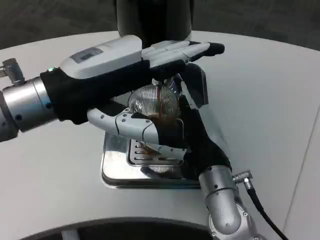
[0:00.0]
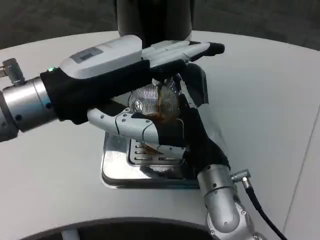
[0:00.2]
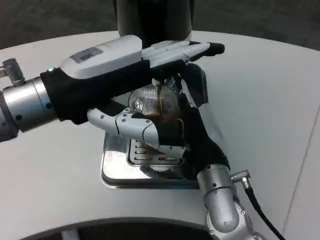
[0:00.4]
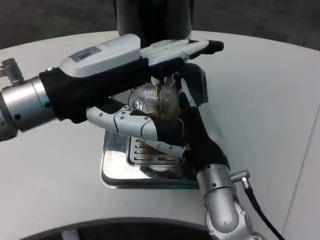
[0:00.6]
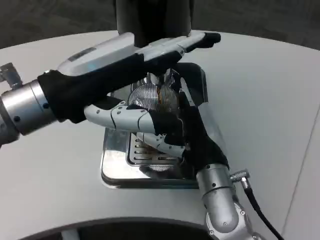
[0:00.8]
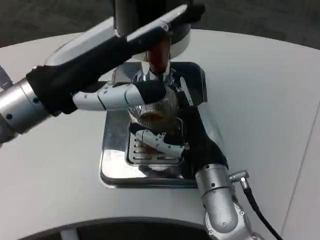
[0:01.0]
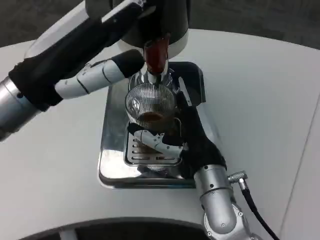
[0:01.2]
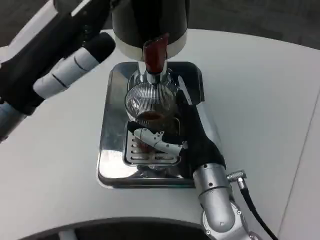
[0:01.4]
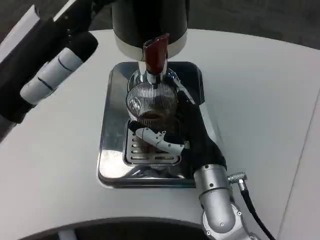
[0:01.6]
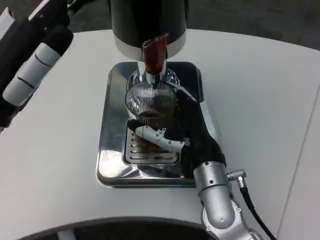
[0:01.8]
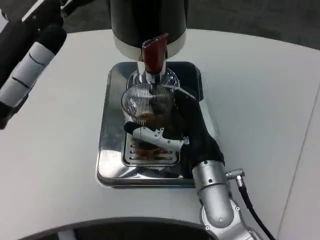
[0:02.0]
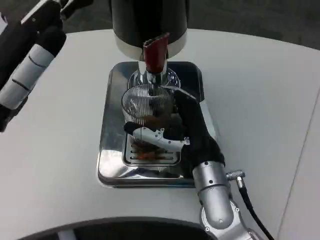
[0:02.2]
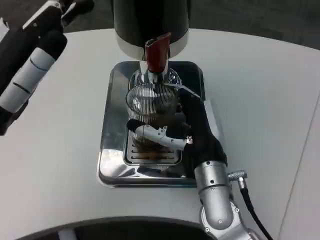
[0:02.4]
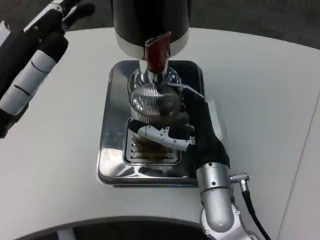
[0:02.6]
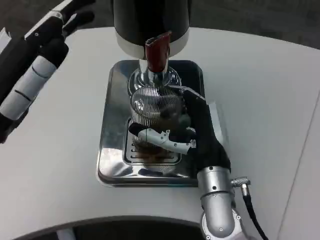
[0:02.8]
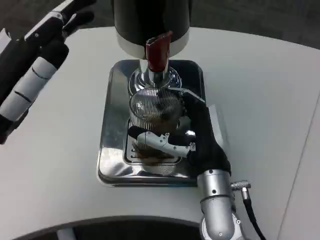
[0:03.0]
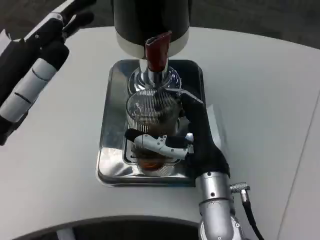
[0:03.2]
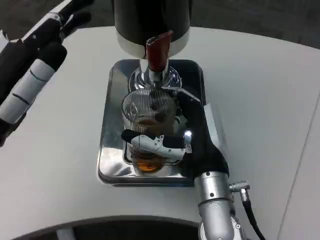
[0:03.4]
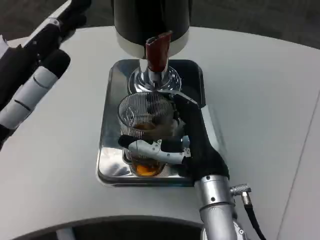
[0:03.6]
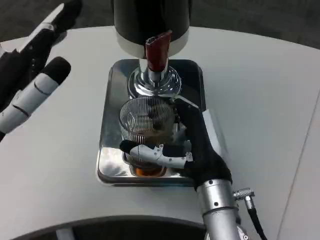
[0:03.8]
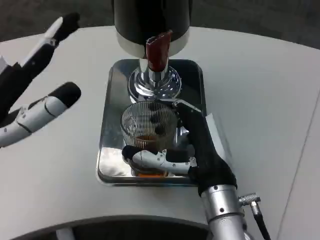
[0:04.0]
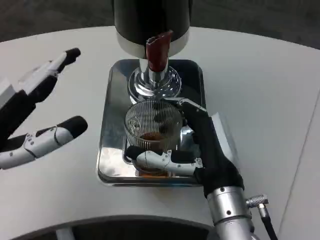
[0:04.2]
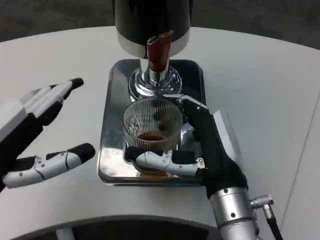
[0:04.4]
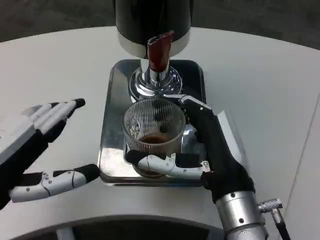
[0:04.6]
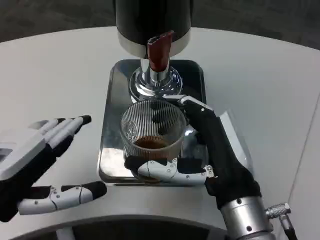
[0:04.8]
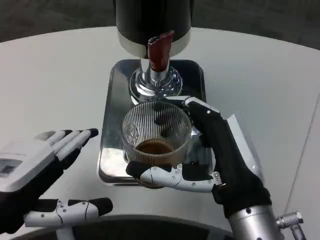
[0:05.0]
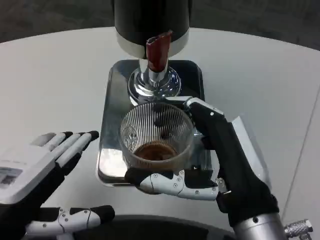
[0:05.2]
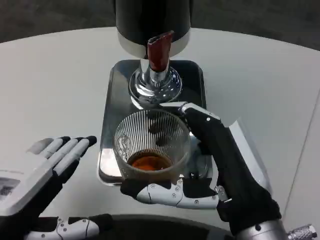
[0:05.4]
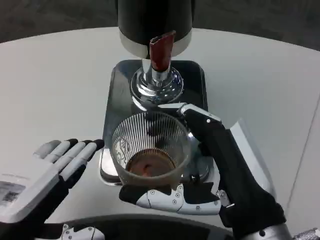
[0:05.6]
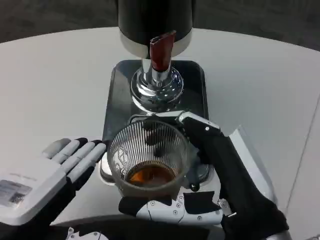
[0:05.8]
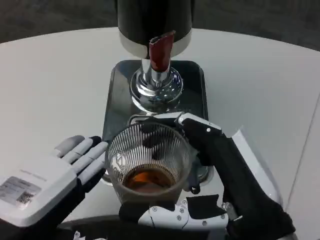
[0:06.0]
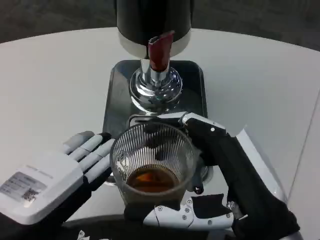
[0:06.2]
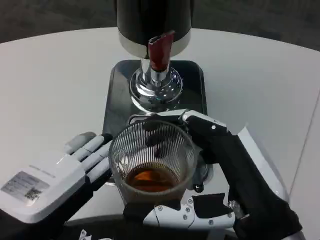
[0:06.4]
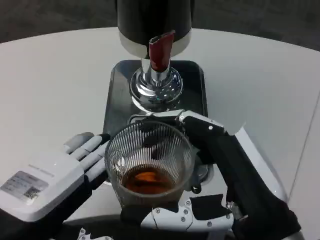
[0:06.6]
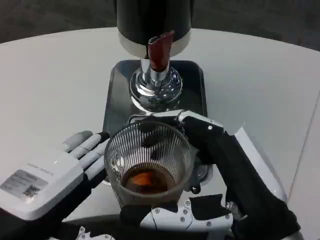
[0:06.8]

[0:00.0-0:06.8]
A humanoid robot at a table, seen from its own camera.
Task of the whole recording: Grasp the cup under the faucet to collect the drink, then remove the cup.
0:04.0 to 0:05.4: The left hand heads backward and downward, covering some 10 cm, while the right hand goes roughly 10 cm backward.

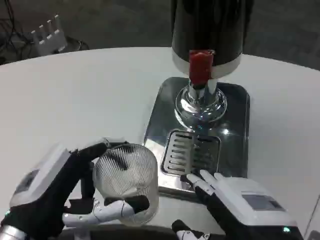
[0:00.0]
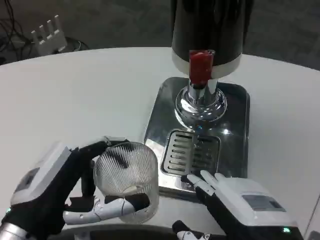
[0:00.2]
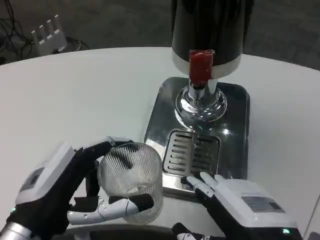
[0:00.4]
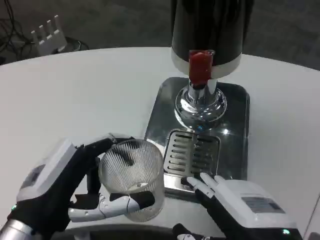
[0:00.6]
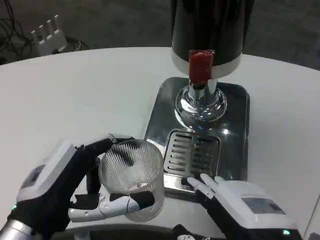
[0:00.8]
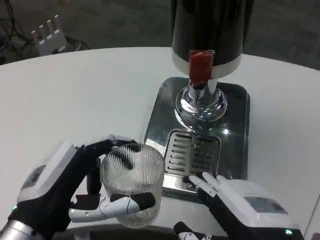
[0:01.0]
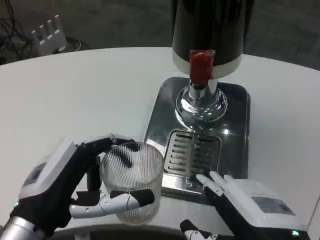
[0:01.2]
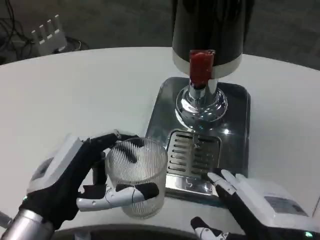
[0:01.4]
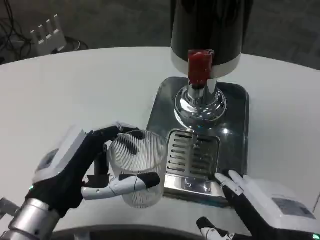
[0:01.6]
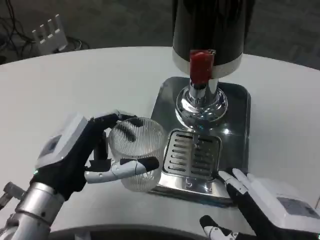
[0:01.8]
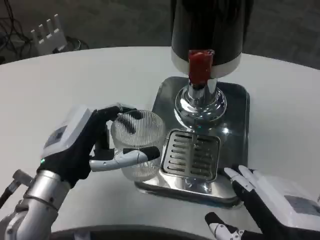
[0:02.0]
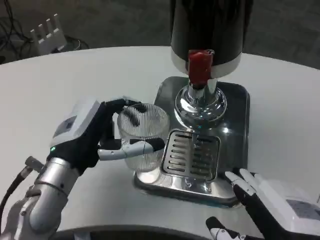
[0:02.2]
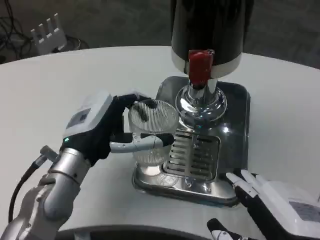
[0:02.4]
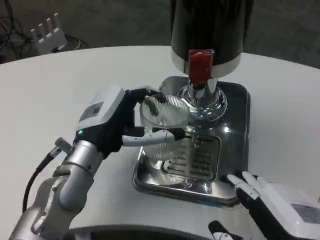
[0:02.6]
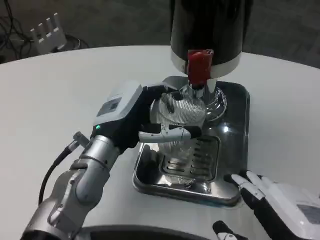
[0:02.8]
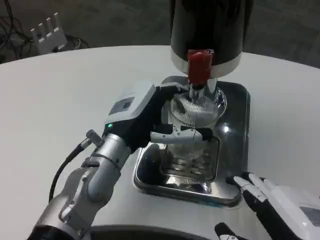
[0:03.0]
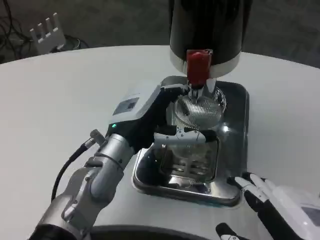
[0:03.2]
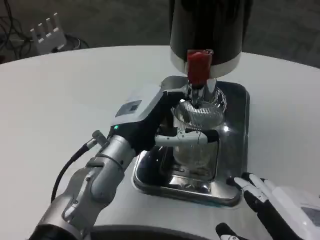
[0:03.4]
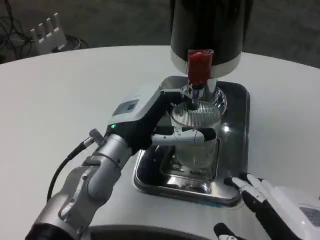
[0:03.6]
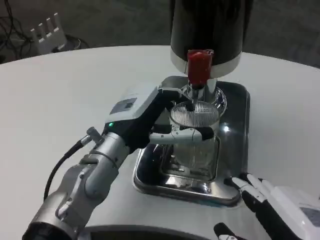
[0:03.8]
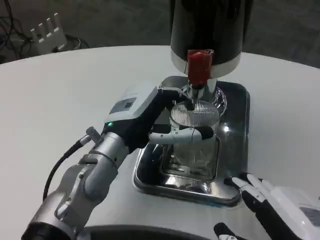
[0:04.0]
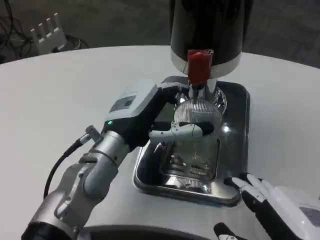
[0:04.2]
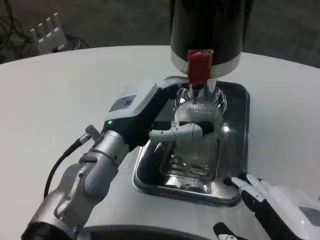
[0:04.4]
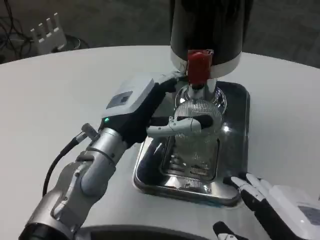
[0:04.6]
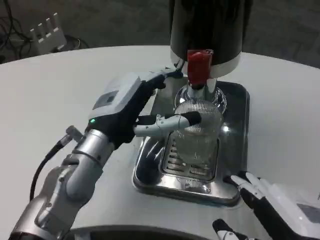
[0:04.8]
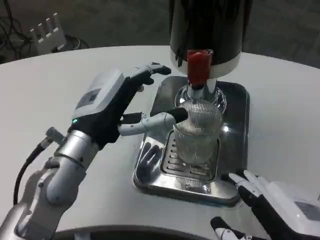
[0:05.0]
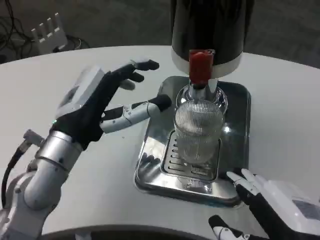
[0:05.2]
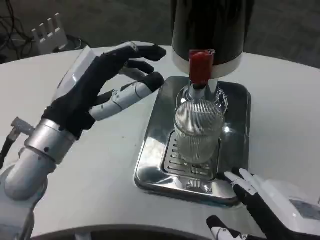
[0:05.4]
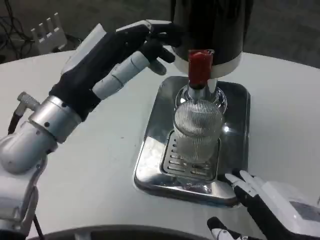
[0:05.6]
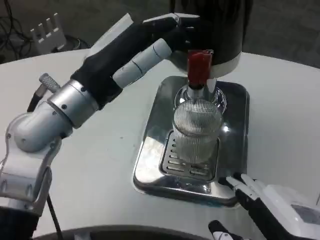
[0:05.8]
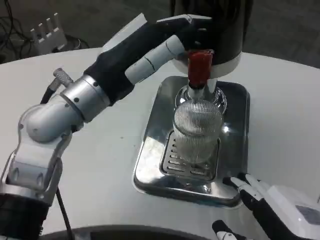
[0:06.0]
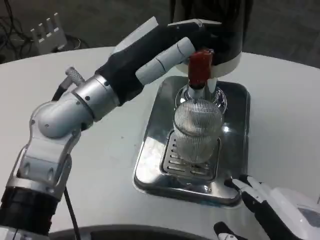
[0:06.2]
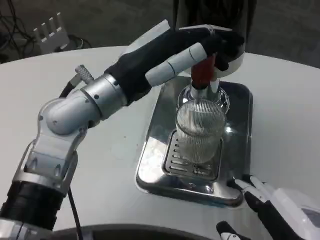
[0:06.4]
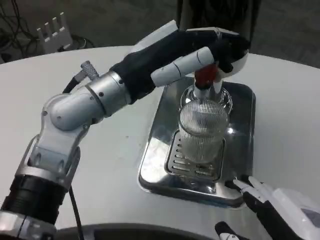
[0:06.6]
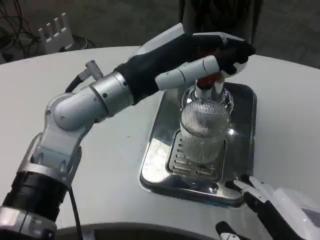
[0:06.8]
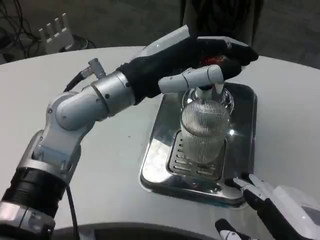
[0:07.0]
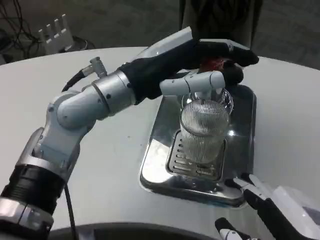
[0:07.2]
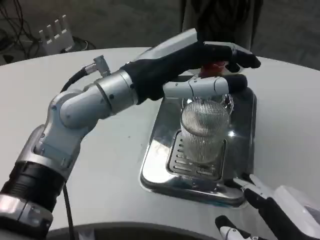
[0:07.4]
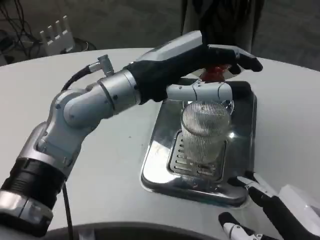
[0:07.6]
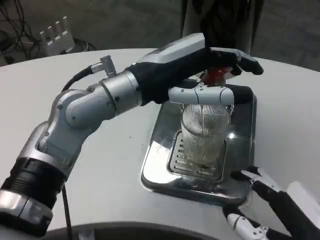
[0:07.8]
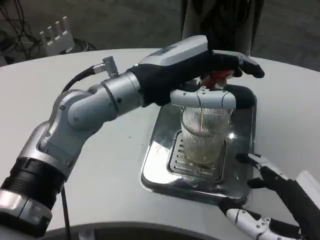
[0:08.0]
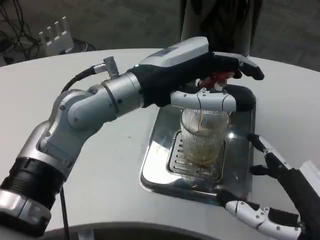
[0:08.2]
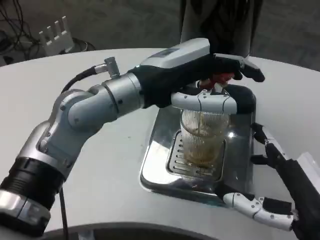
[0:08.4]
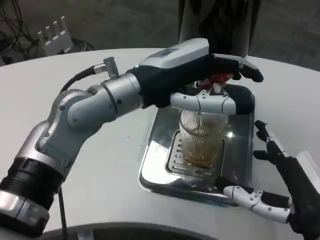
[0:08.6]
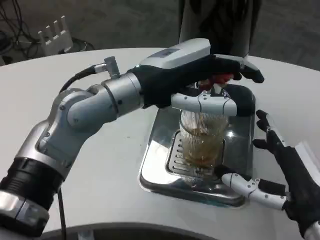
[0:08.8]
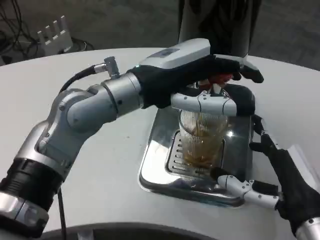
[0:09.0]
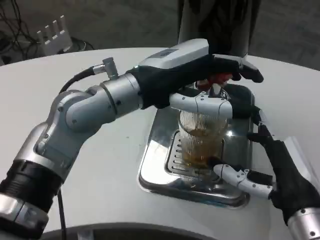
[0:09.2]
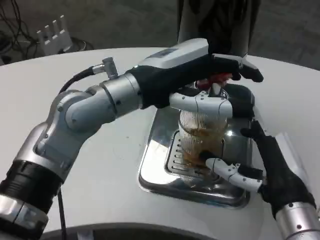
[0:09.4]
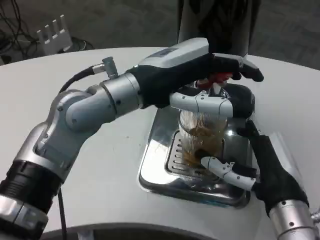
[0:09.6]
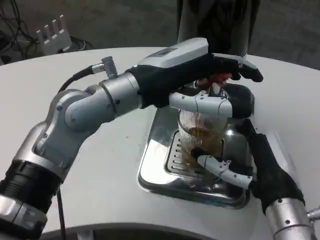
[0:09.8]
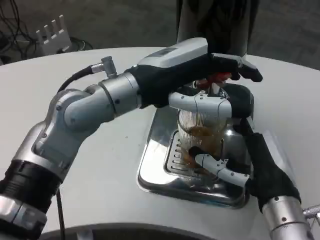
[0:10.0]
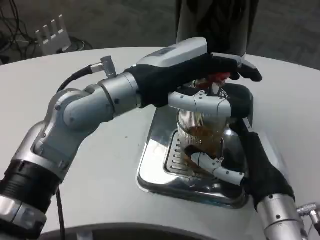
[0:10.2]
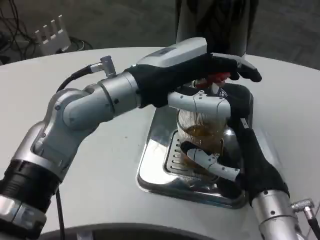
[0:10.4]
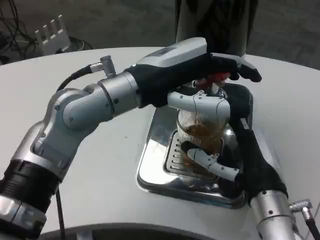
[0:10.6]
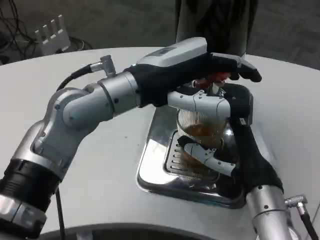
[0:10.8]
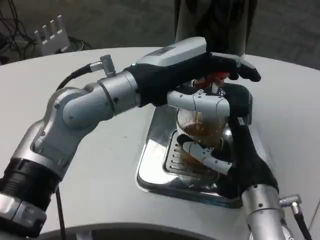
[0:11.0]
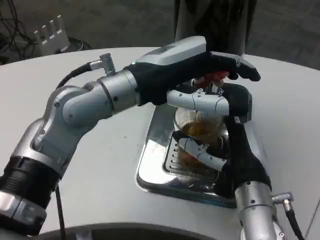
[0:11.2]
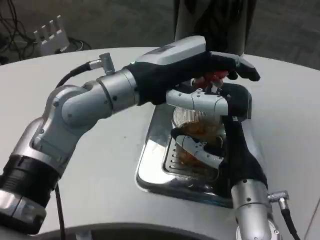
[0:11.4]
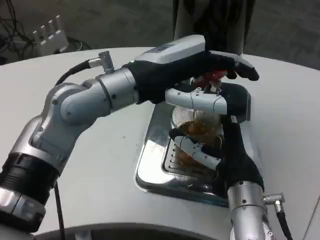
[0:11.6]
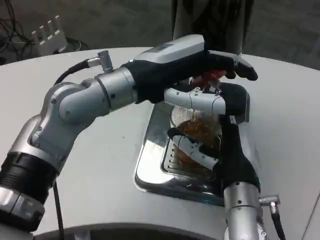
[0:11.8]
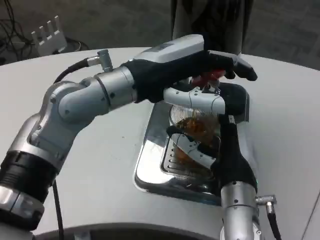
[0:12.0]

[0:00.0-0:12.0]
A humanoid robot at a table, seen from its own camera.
Task of the whole recording: Grasp the cup under the faucet to collect the drink, then remove the cup.
0:01.6 to 0:03.0: The left hand is displaced forward and to the right by about 15 cm.
0:03.0 to 0:04.4: Both hands stay put.
0:04.4 to 0:06.0: The left hand travels upward by about 10 cm.
0:07.6 to 0:09.0: The right hand travels forward by some 10 cm.
0:09.0 to 0:10.4: The right hand ends up about 5 cm from where it was.
0:10.4 to 0:12.0: The right hand moves about 5 cm.

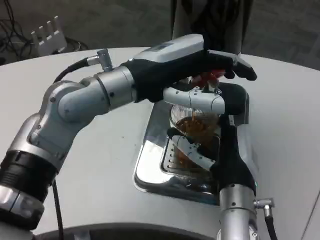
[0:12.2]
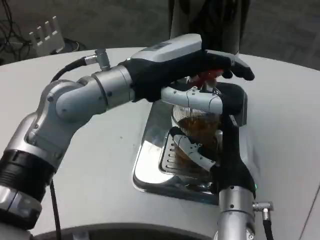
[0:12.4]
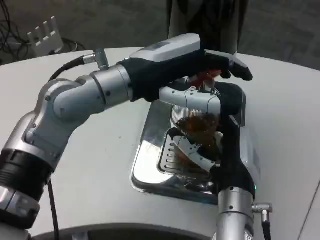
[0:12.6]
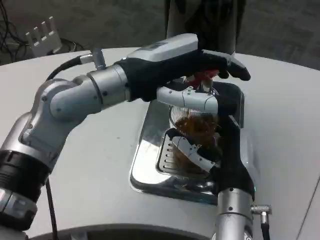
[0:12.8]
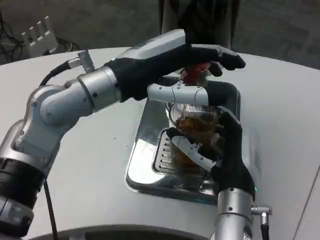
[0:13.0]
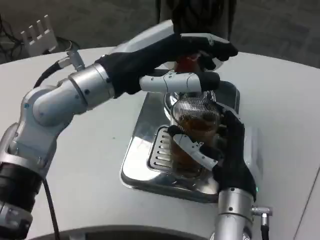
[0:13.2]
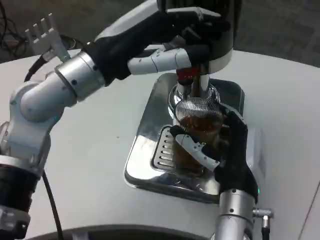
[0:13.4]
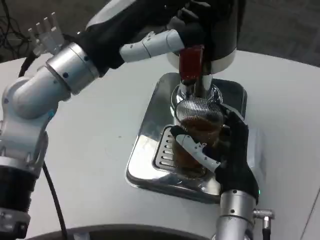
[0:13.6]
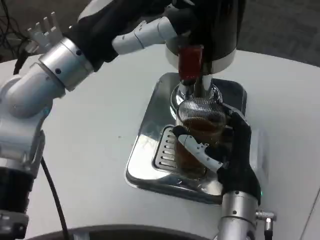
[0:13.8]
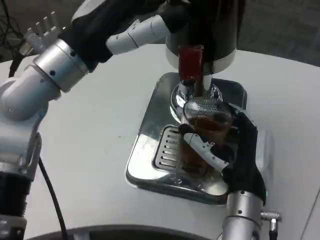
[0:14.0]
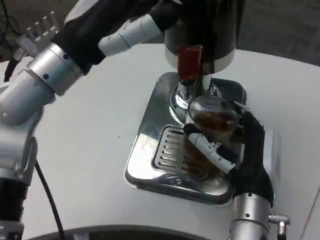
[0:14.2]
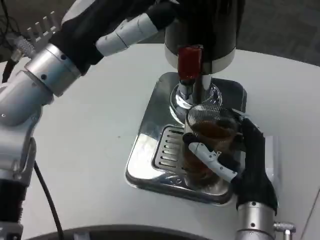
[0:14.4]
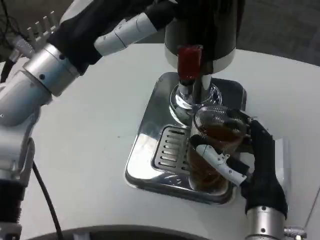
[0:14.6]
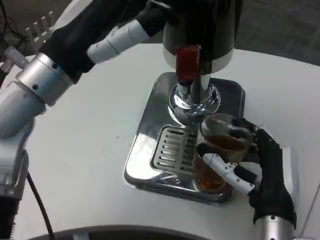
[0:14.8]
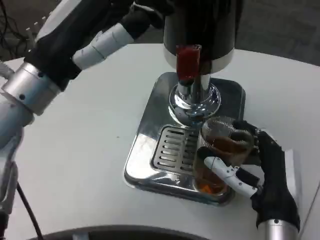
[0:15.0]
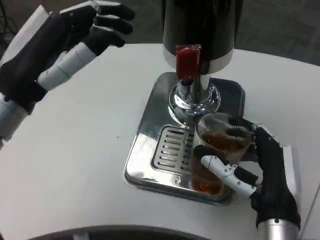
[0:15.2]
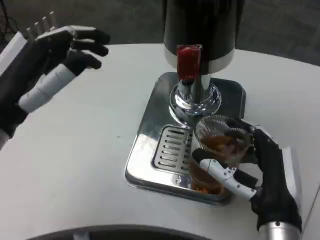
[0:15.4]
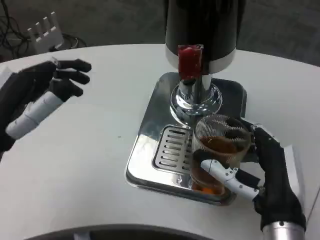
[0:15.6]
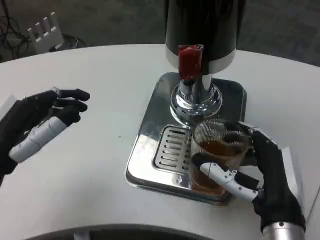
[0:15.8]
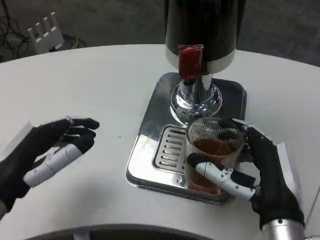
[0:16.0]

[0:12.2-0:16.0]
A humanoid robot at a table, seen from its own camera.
Task of the whole recording: Grasp the cup under the faucet to collect the drink, then remove the cup.
0:13.4 to 0:14.8: The right hand ends up approximately 5 cm from where it was.
0:14.8 to 0:16.0: The left hand moves downward, backward and to the left, some 15 cm.
